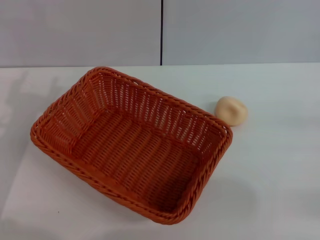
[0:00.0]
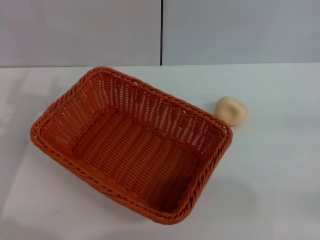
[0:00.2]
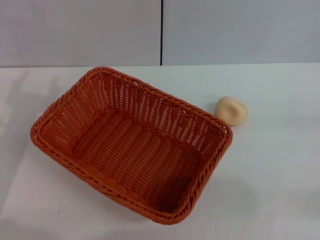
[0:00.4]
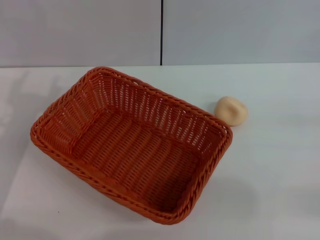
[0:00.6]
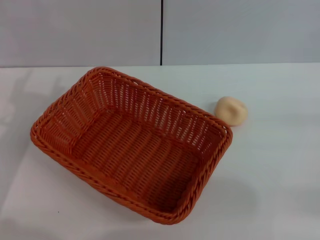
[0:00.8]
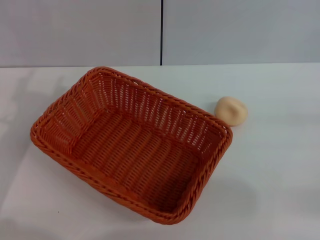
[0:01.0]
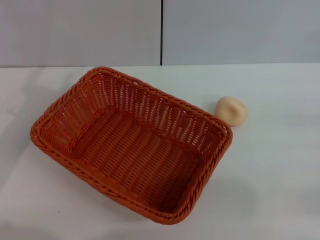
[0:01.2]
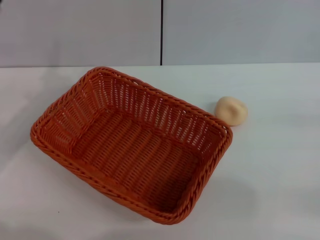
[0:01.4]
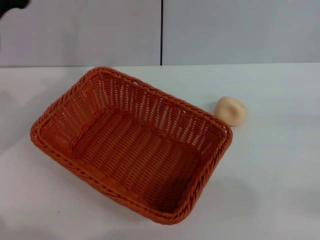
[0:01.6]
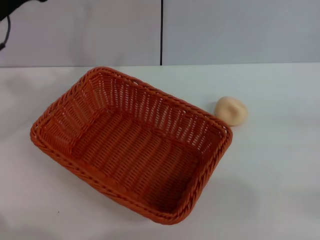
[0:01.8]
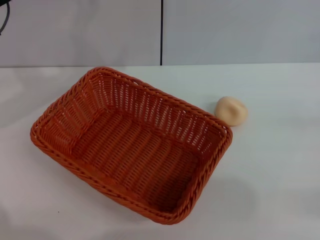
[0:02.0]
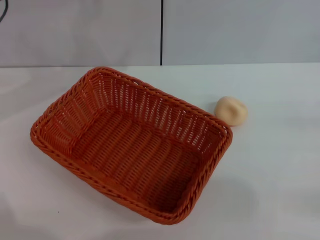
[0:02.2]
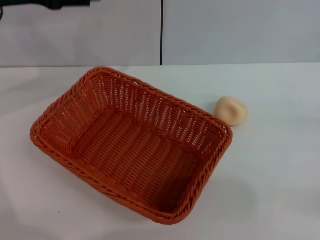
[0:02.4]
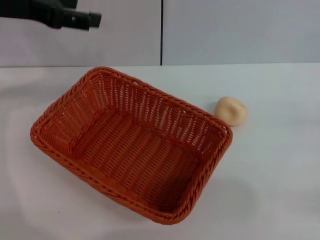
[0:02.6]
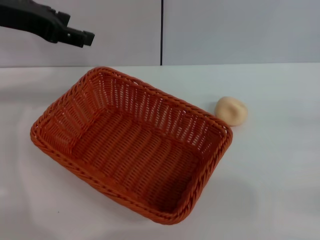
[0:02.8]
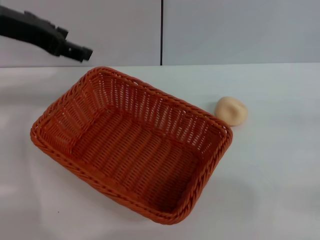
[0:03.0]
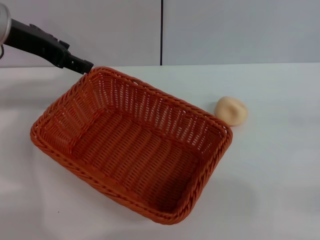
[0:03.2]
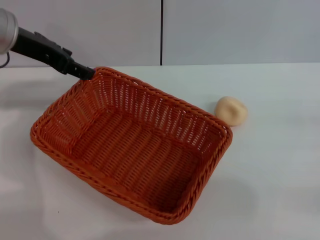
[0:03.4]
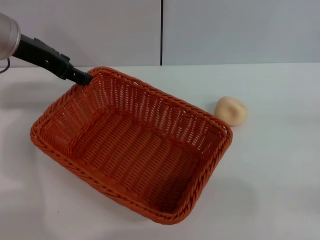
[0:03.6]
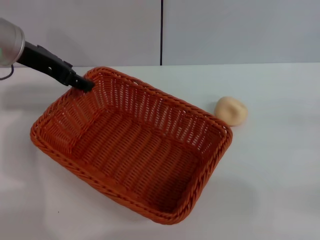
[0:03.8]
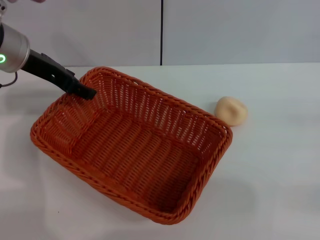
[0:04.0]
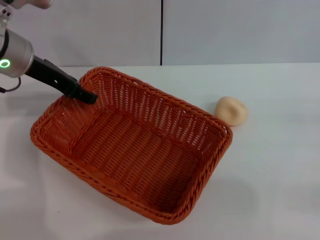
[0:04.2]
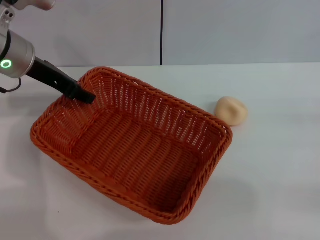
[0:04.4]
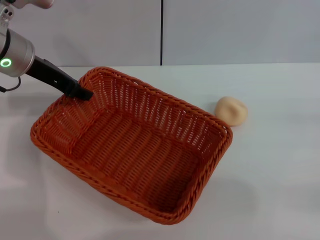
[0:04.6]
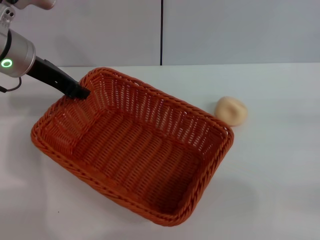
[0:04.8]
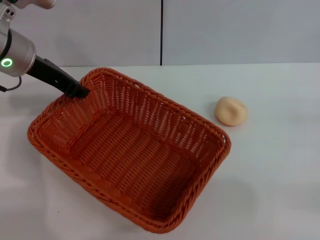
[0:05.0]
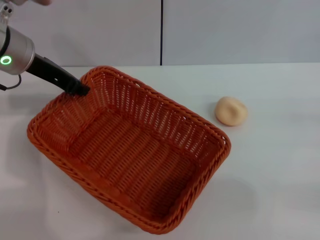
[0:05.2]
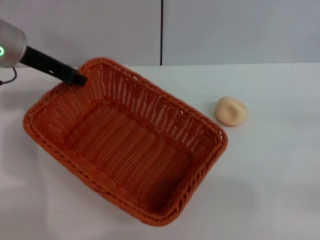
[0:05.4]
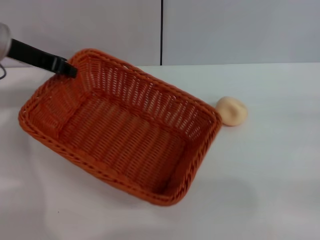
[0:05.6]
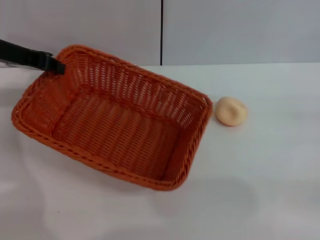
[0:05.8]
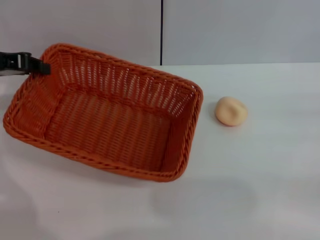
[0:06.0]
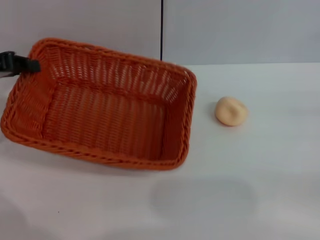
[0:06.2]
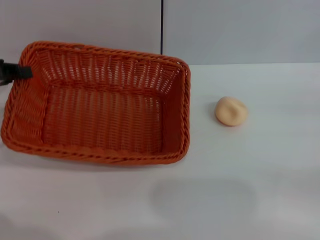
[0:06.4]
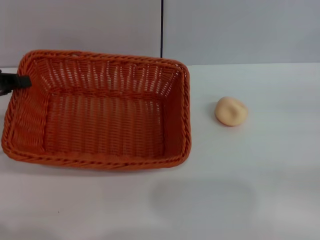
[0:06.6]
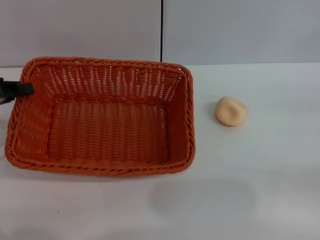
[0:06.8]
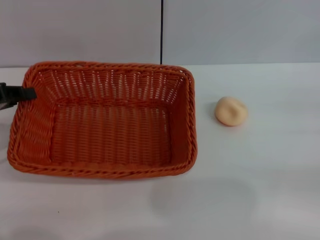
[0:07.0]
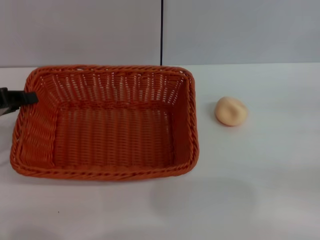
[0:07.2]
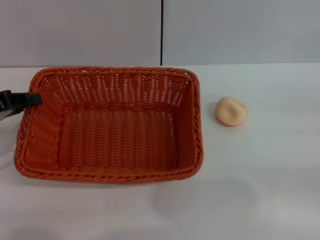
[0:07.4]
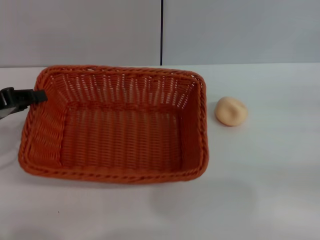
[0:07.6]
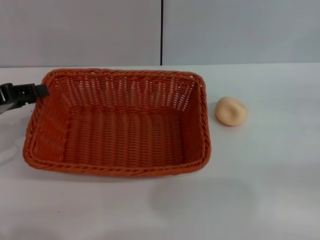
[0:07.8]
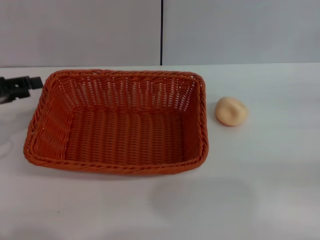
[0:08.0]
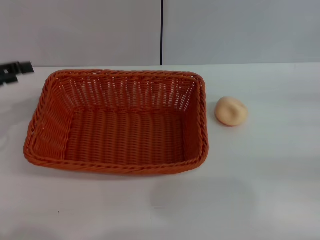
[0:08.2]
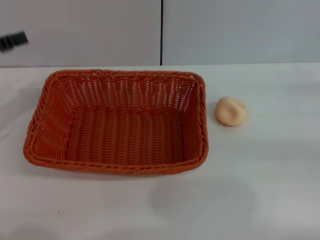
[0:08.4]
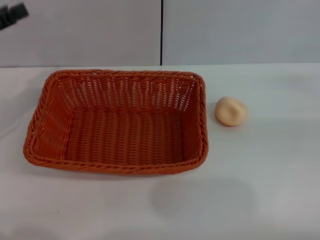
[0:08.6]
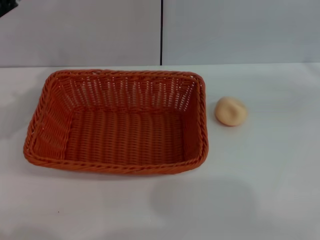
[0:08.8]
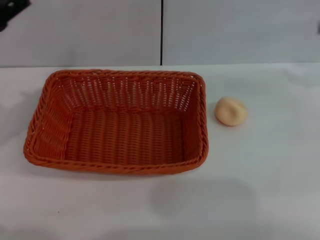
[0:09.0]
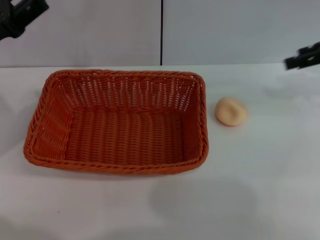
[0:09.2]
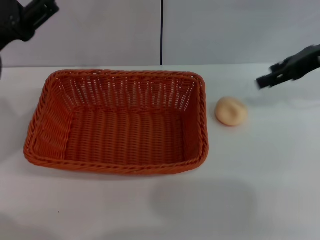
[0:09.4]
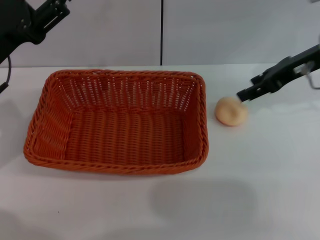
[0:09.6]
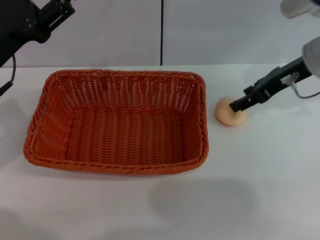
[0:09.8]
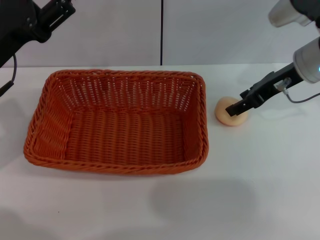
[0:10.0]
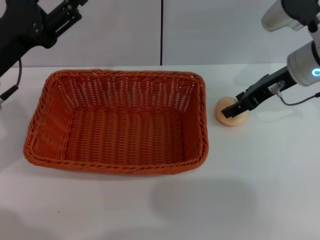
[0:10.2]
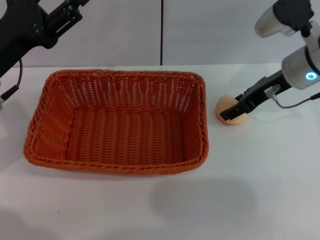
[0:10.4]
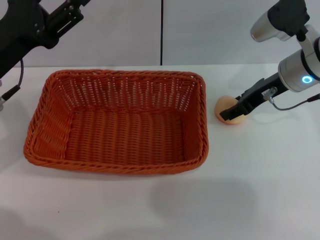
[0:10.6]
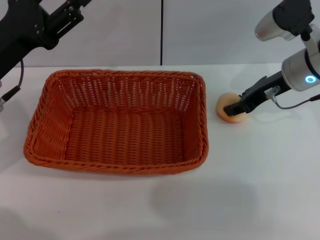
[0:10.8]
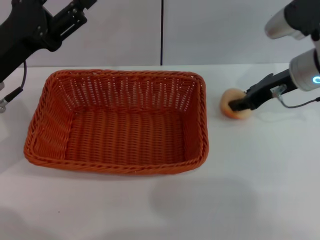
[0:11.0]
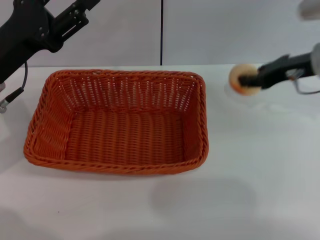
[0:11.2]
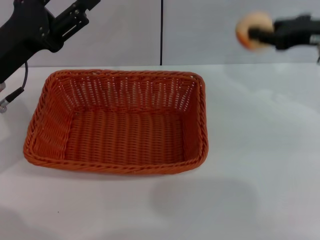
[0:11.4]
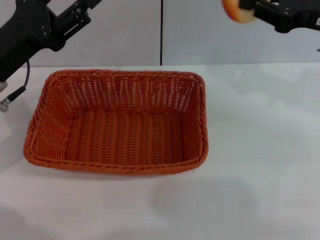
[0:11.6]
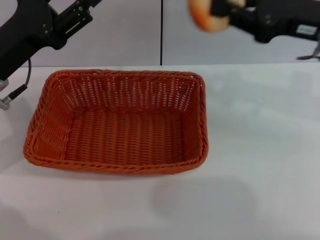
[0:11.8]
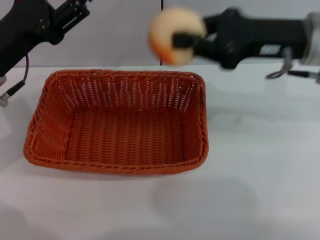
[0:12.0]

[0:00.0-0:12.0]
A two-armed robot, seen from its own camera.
Step, 0:00.0 to 0:07.8: Move the basket to the center of view with the left gripper.
Step, 0:08.2 to 0:11.2: Pick up the egg yolk pastry with the right gripper.
0:01.6 to 0:03.0: The left gripper is displaced upward by roughly 10 cm.
0:03.0 to 0:04.4: The left gripper travels downward by approximately 5 cm.
0:04.4 to 0:06.0: The left gripper heads to the left, covering about 10 cm, and closes.
0:06.0 to 0:07.6: The left gripper heads backward and downward, covering approximately 10 cm.
0:07.6 to 0:09.0: The left gripper opens its fingers. The right gripper goes about 15 cm upward and forward.
0:09.0 to 0:10.4: The right gripper is displaced to the left and downward by some 20 cm. The left gripper travels to the right by about 5 cm.
0:10.4 to 0:12.0: The right gripper is displaced upward and backward by about 10 cm, and closes its fingers.

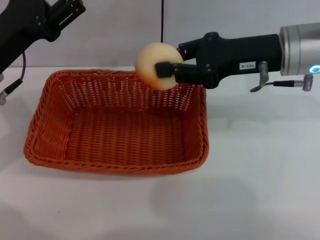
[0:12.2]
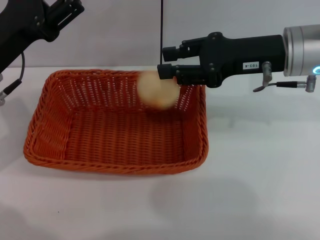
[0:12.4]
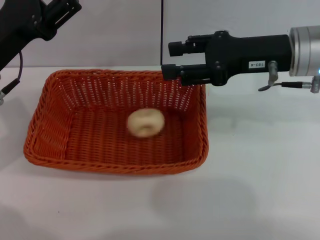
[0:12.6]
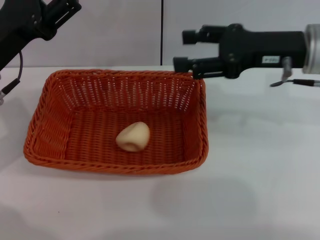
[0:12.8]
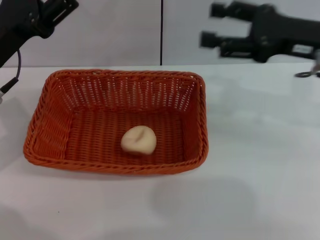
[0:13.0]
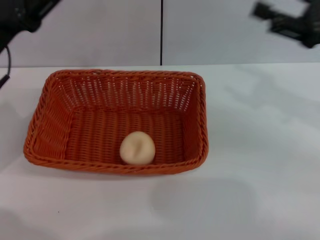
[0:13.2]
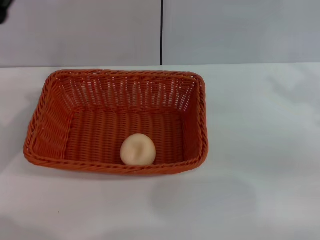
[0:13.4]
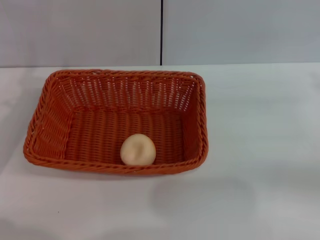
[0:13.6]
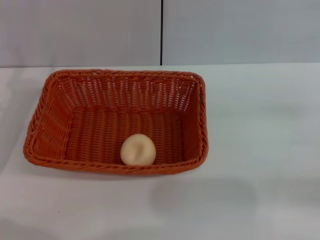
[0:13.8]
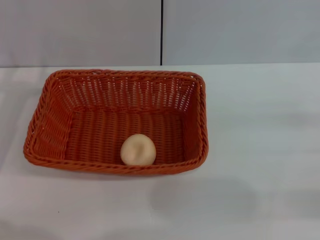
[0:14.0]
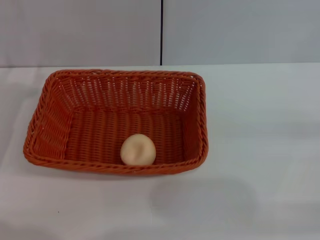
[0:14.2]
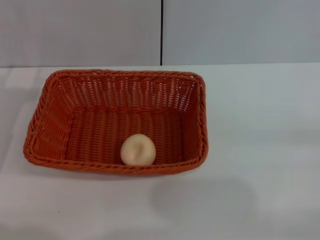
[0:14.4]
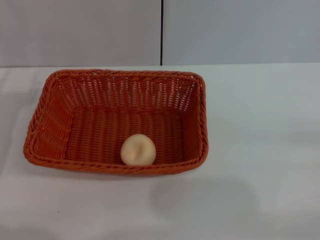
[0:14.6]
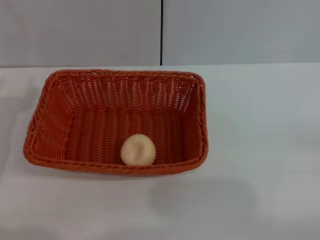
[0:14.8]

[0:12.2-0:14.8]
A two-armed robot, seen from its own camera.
0:12.2 to 0:13.4: The right gripper is displaced to the right and backward by roughly 15 cm, and opens up.
0:13.4 to 0:14.8: The left gripper goes some 5 cm backward.

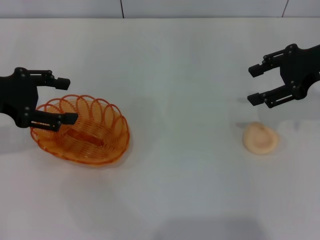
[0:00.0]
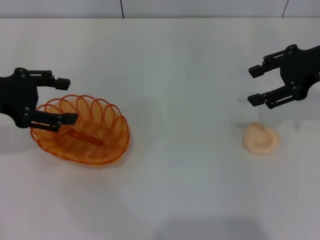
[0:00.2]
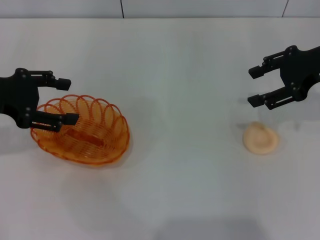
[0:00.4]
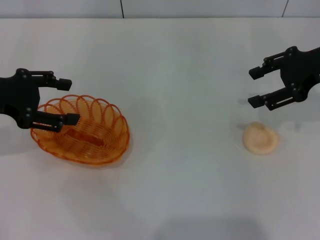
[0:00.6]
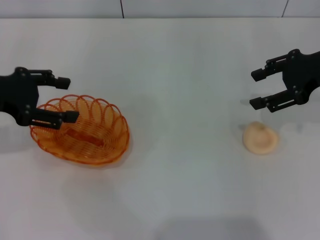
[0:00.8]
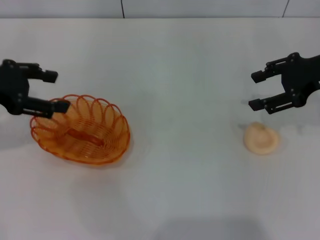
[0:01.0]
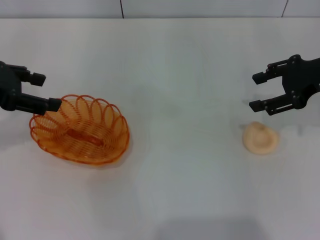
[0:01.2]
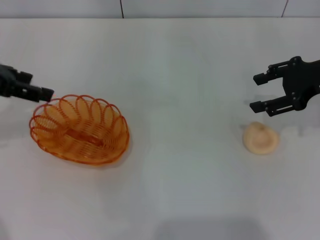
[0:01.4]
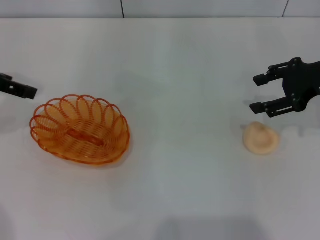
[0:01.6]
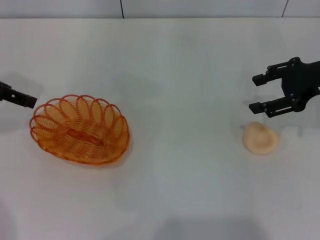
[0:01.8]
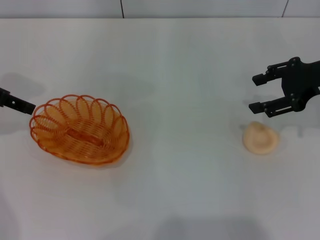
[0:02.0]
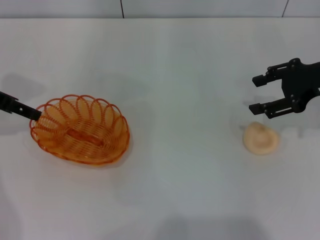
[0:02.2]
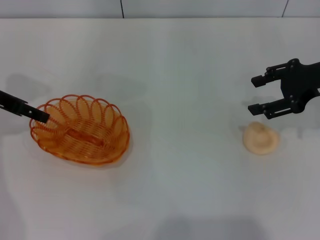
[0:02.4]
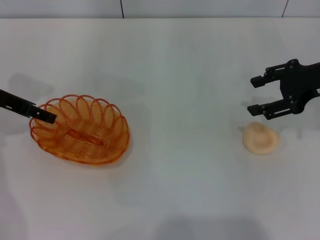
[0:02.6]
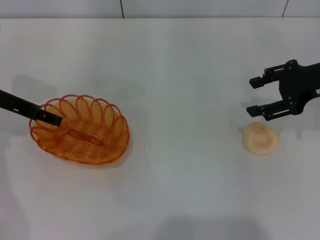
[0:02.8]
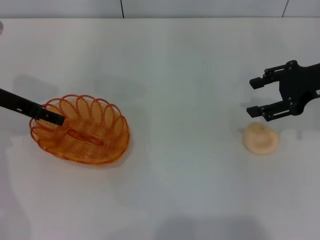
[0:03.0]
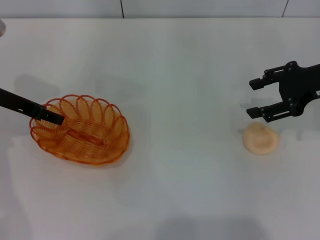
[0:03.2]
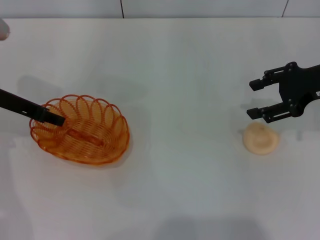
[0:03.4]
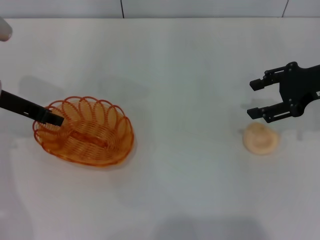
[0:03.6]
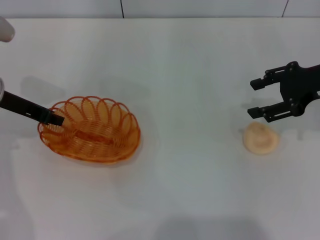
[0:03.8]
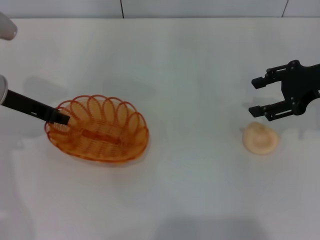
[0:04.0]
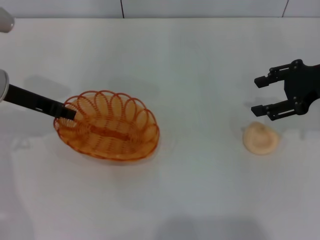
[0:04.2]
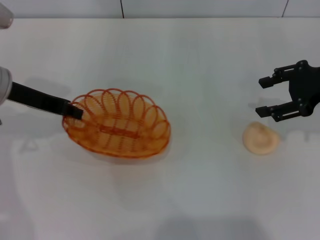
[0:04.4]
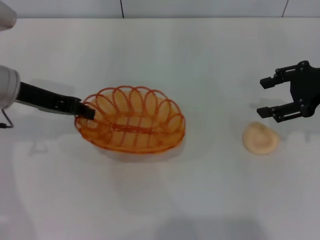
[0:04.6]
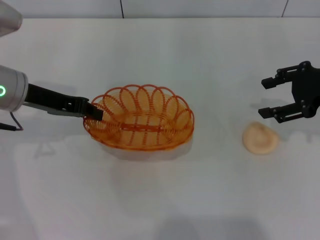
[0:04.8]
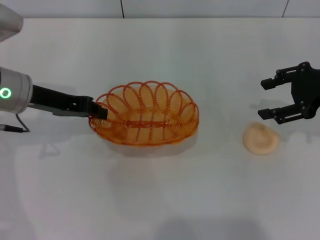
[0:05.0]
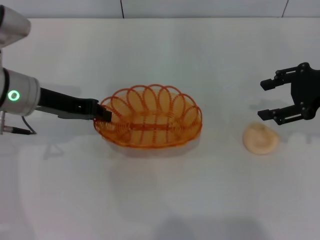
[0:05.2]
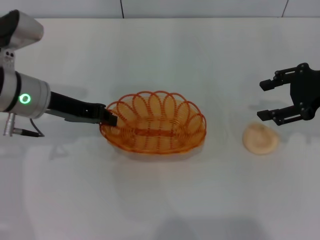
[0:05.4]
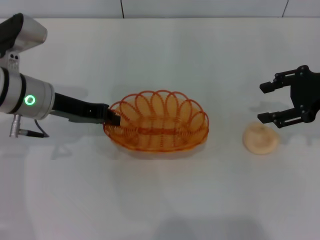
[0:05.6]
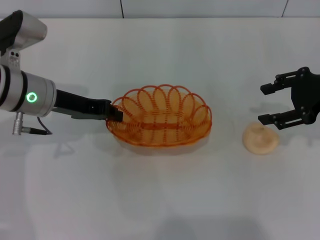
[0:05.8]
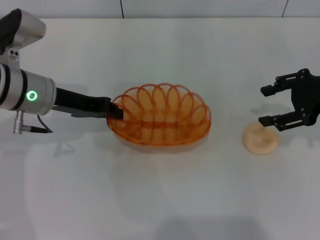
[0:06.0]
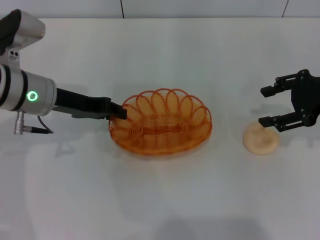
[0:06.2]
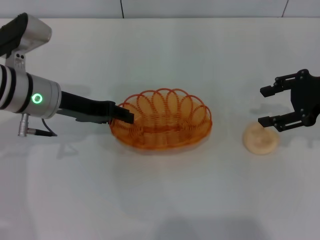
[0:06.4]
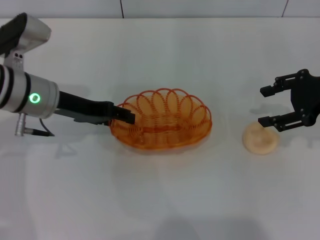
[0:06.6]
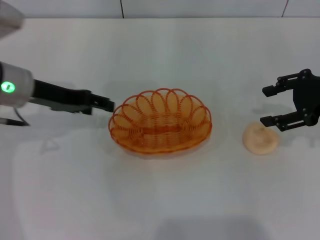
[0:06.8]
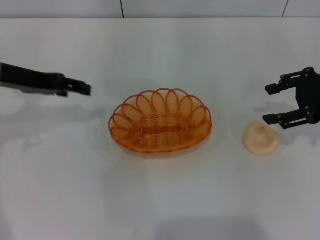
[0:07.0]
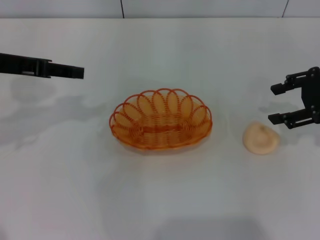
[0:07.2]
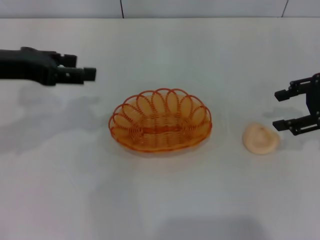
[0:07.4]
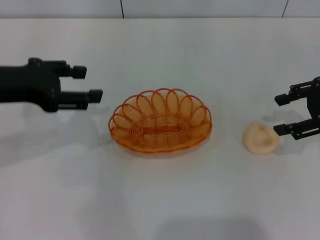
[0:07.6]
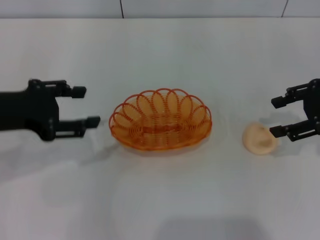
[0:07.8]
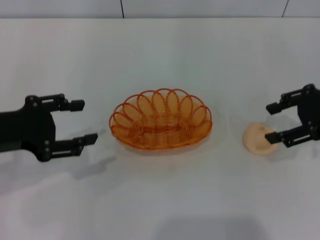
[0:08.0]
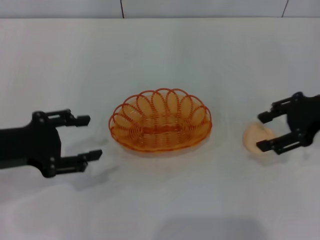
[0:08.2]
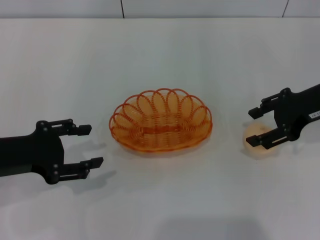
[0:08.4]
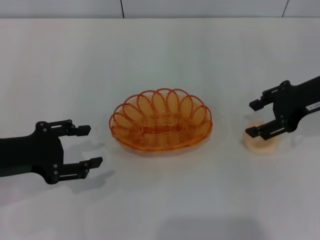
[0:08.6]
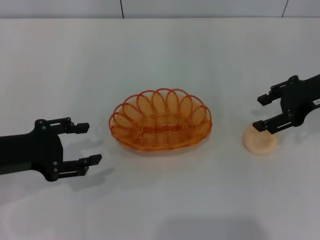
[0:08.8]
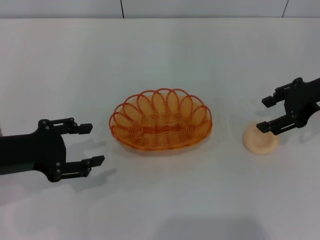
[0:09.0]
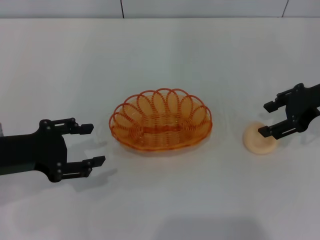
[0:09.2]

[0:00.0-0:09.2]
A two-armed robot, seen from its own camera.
Step, 0:00.0 to 0:04.8: Pick up the basket with the left gripper.
Step, 0:05.0 to 0:07.2: Place the basket in the center of view with the left gripper.
0:00.0 to 0:01.6: The left gripper is displaced upward by roughly 5 cm.
0:01.6 to 0:03.0: The left gripper is displaced downward by some 10 cm.
0:03.0 to 0:04.6: The left gripper closes up.
0:04.6 to 0:06.2: The grippers stay close to where they were, moving slightly.
0:06.2 to 0:07.6: The left gripper is displaced upward, to the left and backward by about 10 cm, and opens its fingers.
0:07.6 to 0:09.2: The left gripper goes approximately 10 cm downward and backward.
